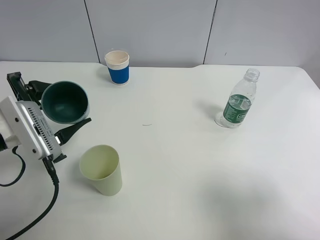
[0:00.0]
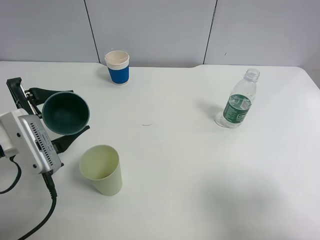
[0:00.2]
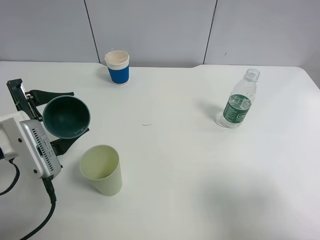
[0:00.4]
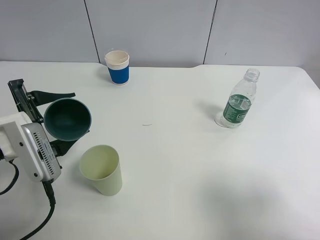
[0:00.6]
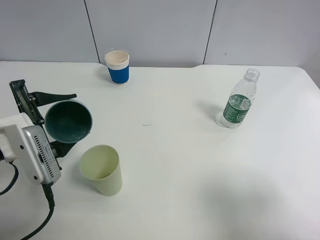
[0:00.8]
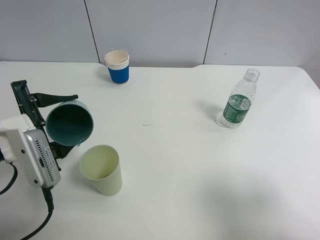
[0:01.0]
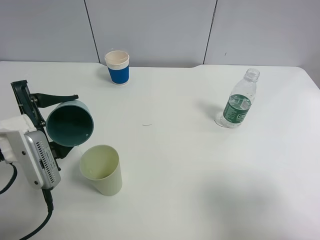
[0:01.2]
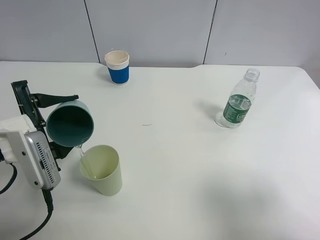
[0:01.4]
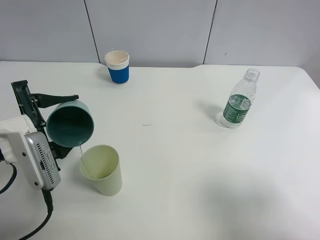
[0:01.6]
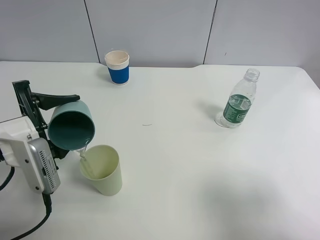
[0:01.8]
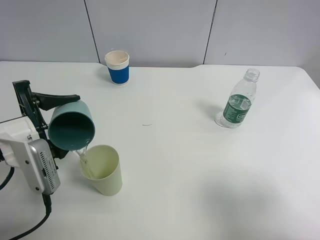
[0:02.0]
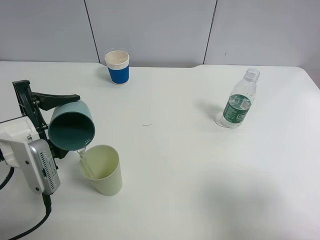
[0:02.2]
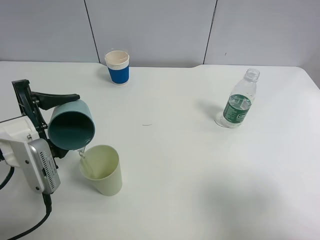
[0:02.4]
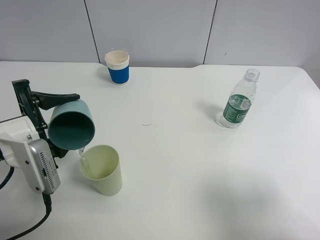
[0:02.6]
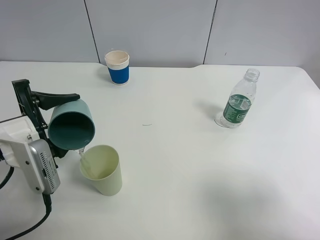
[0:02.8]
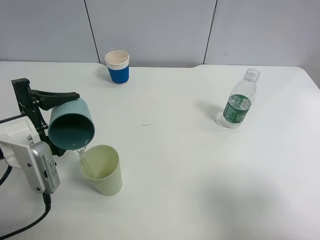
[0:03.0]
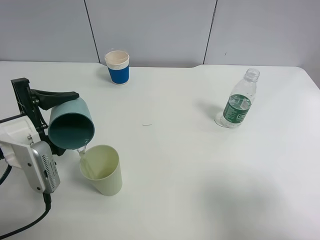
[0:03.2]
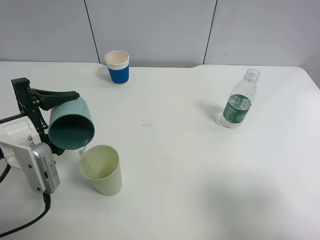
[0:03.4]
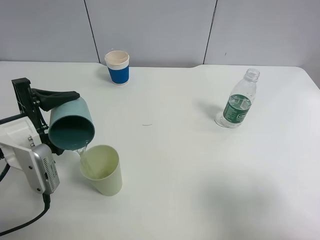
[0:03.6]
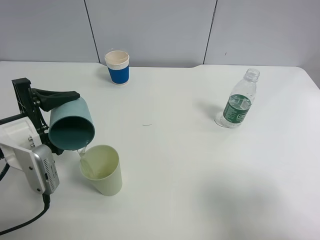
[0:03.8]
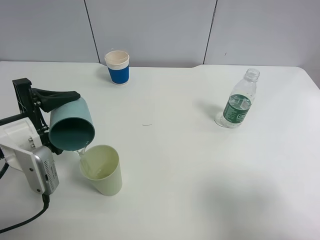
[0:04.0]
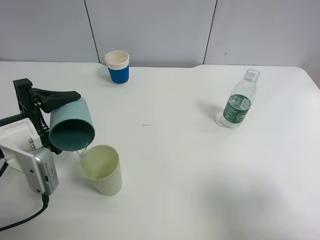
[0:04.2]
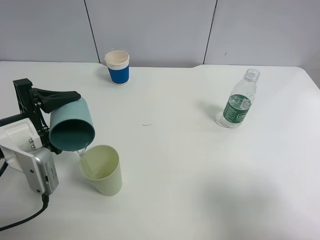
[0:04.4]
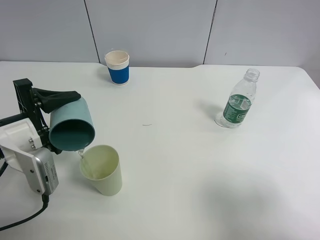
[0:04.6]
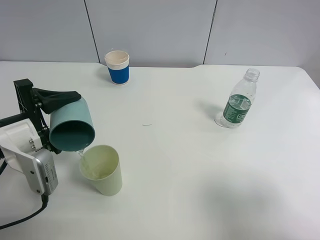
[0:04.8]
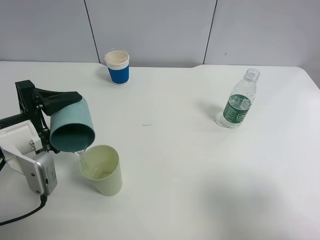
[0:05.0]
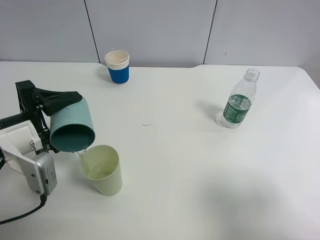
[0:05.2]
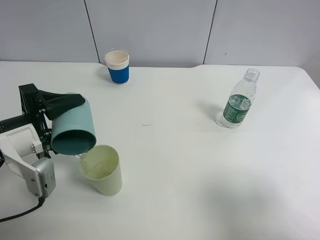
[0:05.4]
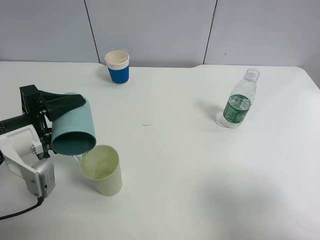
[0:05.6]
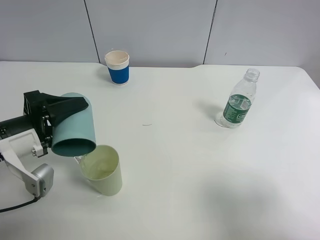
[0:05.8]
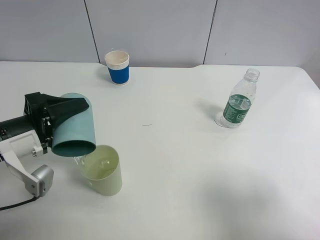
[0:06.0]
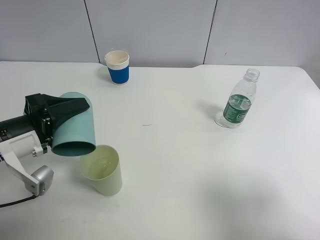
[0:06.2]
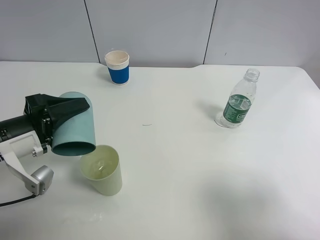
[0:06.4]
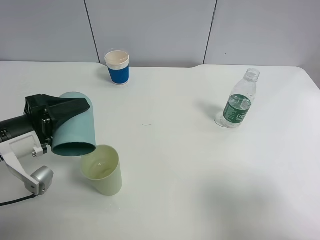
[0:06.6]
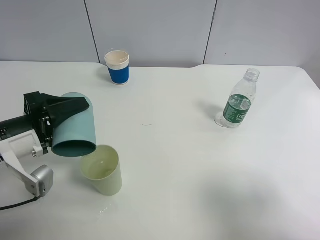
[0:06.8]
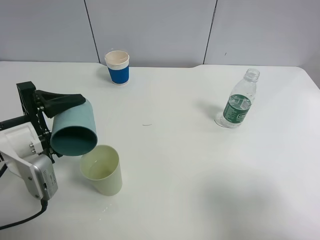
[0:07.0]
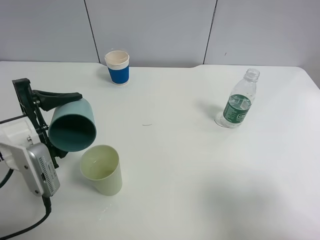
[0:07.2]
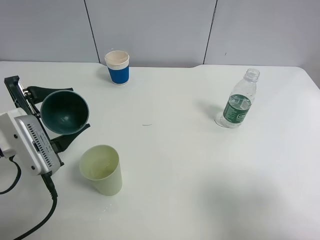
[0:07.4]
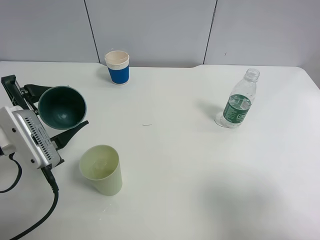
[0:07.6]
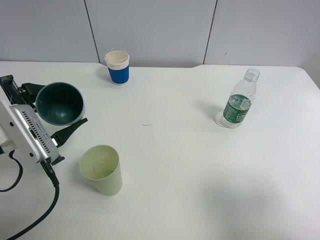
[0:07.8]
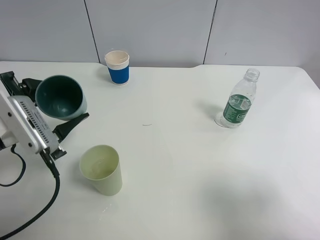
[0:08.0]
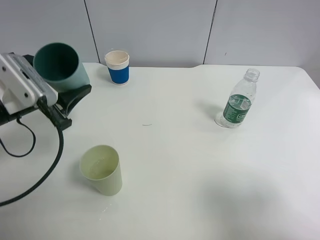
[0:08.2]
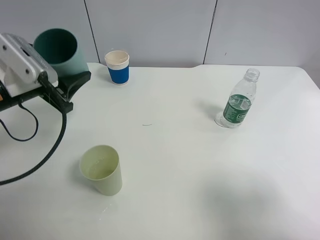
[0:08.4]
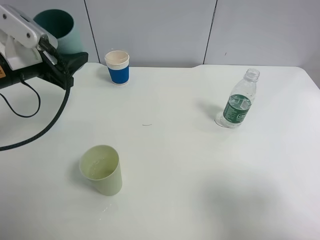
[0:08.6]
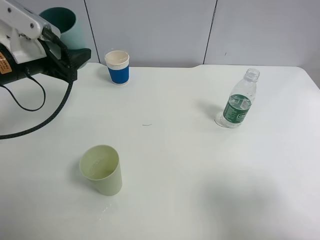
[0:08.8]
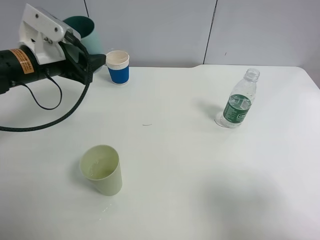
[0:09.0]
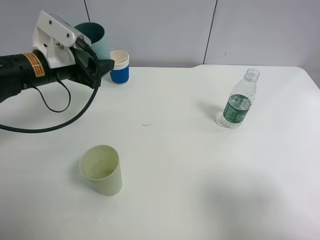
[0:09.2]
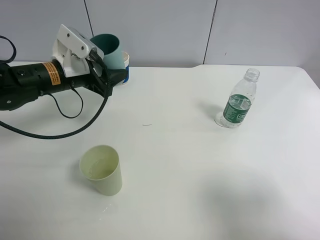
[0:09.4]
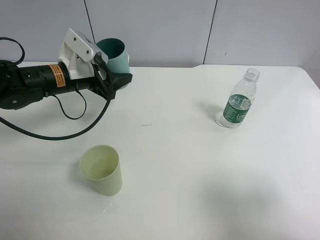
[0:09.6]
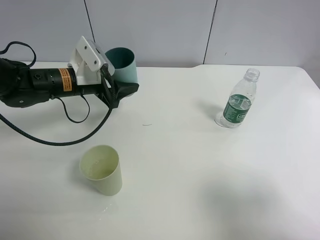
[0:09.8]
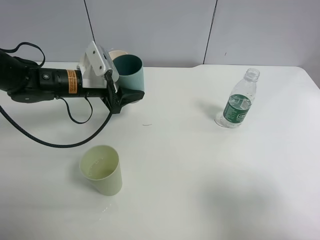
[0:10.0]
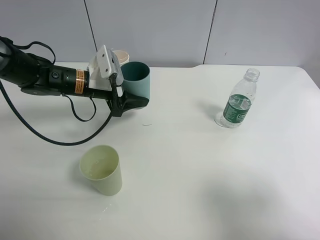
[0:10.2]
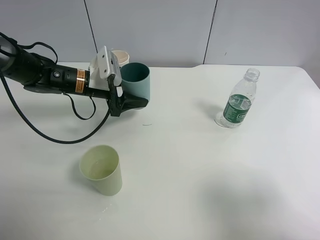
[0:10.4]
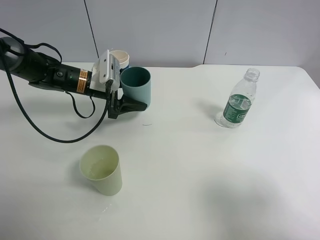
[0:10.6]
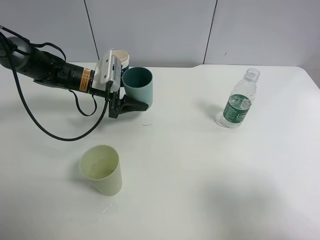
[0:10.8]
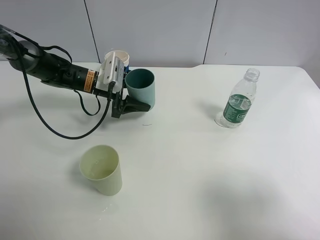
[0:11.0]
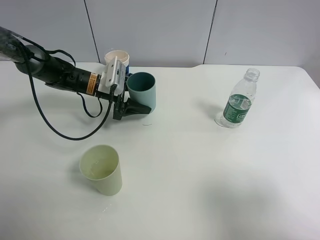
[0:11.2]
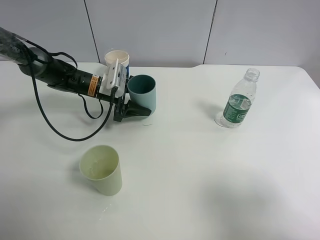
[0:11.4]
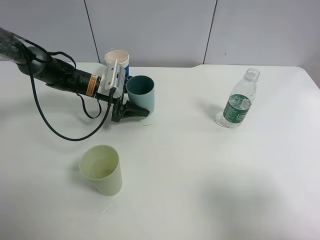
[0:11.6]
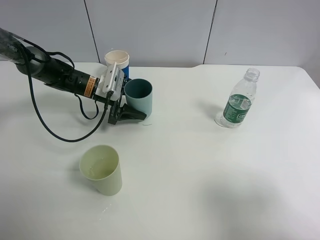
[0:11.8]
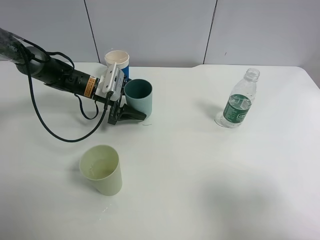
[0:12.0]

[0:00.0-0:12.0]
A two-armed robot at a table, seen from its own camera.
Task of the whole recording: use a clamp to hold the bottle of the drink, pour the beverage into a random cup, then clamp the cup containing the drink and pour the drink into another random cup.
Step, 0:00.0 to 0:07.2: Pour water into the green plastic cup with left gripper.
0:00.0 to 0:01.6: The grippers make only small movements.
0:01.6 to 0:03.0: The grippers move only a little.
0:03.0 to 0:04.4: The grippers move only a little.
0:07.6 to 0:09.0: The left gripper travels forward by roughly 15 cm.
0:09.0 to 0:10.4: The left gripper goes some 10 cm downward, to the right and forward.
0:10.4 to 0:12.0: The left gripper moves roughly 5 cm.

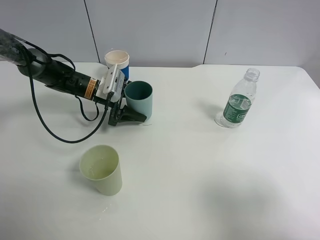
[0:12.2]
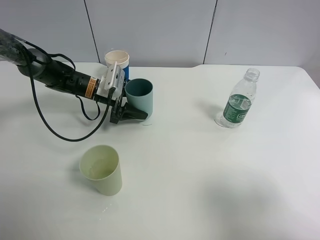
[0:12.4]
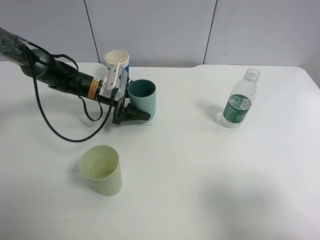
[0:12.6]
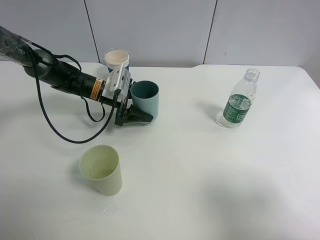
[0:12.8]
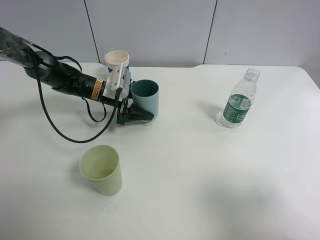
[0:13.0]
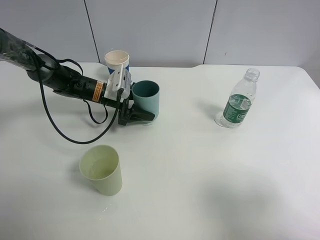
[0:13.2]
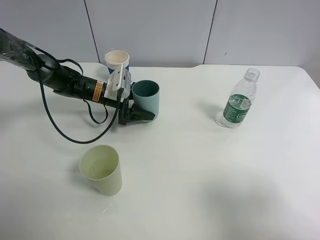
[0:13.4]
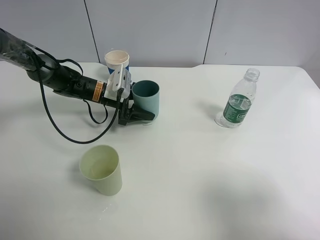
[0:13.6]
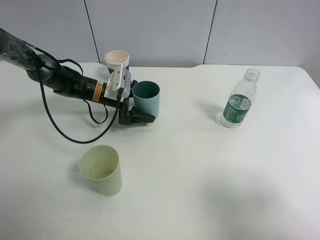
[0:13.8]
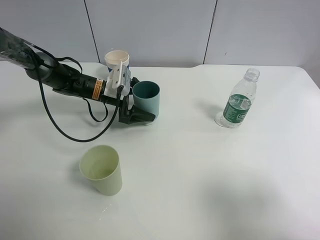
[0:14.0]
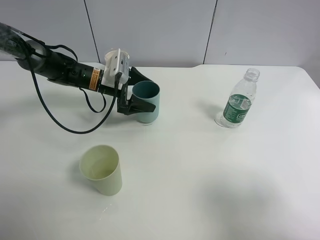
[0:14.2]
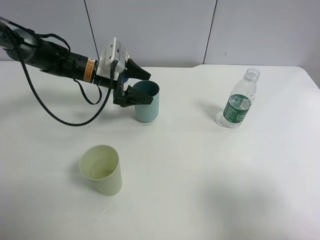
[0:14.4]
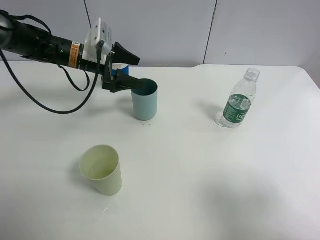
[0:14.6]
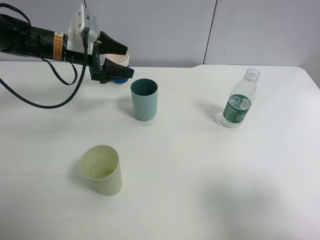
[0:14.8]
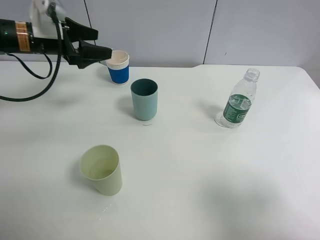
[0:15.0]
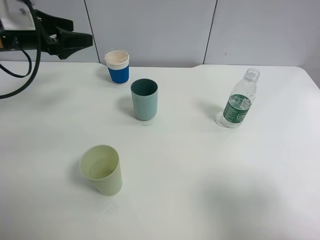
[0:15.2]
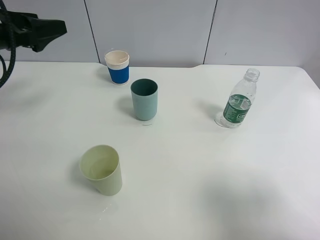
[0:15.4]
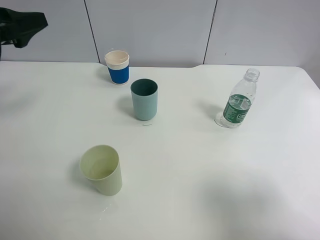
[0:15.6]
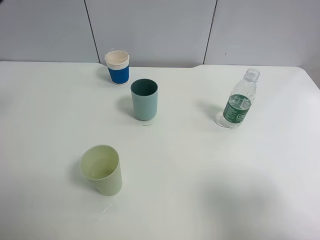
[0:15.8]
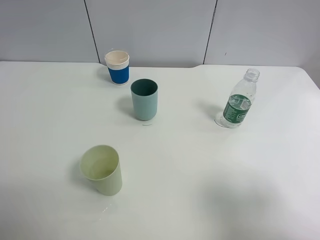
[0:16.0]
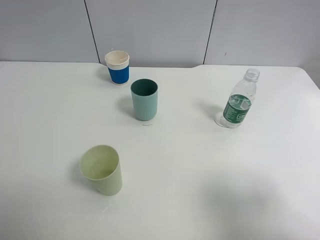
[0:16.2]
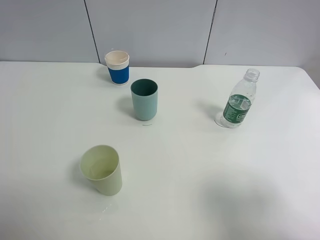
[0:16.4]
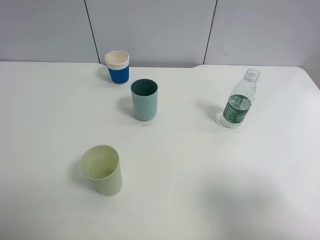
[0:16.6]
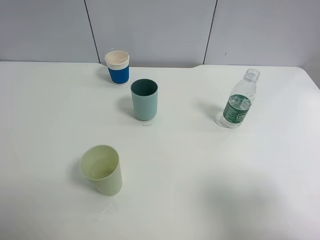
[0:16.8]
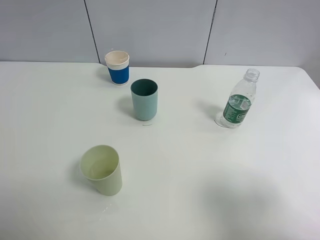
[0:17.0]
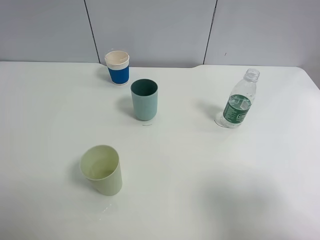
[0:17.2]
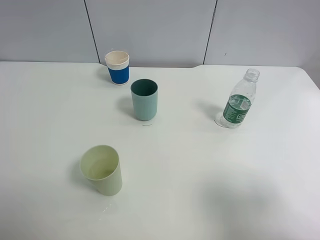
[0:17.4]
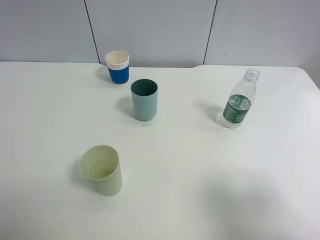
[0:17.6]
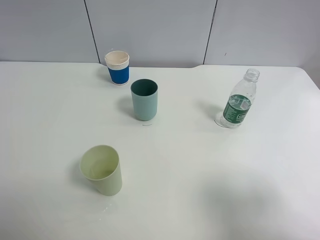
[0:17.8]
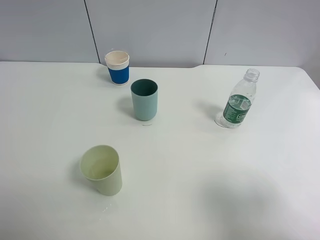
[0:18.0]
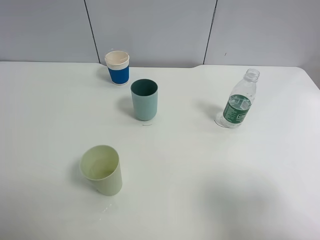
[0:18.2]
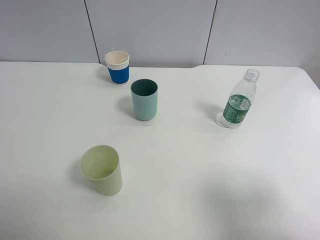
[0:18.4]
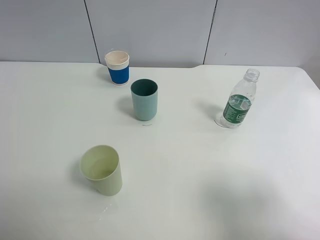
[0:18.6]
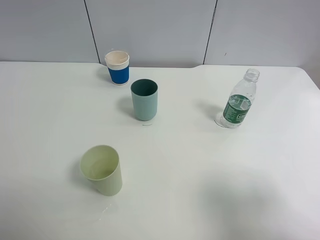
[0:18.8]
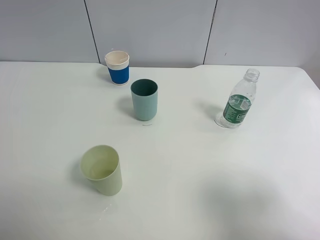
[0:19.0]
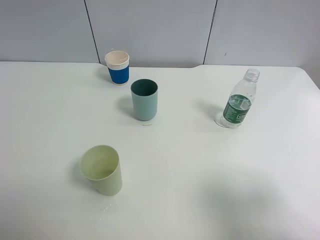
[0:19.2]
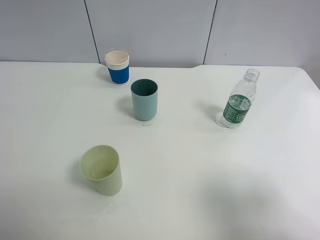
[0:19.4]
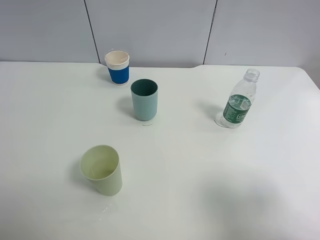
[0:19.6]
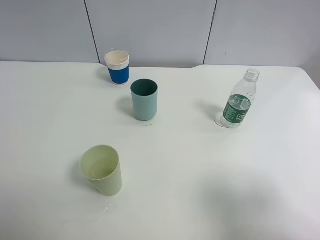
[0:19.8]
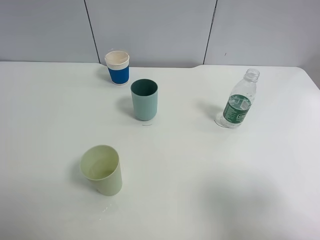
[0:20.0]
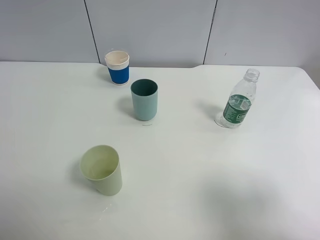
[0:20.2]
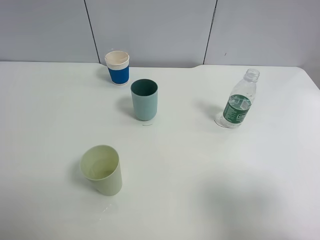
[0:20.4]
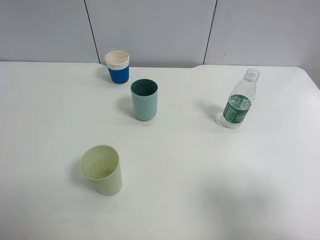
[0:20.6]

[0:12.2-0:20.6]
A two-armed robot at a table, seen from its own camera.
Task of the whole recording: use a clamp to hold the bottle of the drink, pour the beverage into a random cup, then clamp the cup containing the drink and pour the drink into another random cup.
Step, 0:12.2 to 0:14.4: Place the blue plastic cup on the table with left gripper.
0:12.2 to 0:13.6: The grippers stay close to where they were, moving slightly.
0:13.6 to 0:15.0: The left gripper shifts some 20 cm upward and to the left, and opens its fingers.
0:15.0 to 0:16.4: The left gripper moves backward and upward, roughly 30 cm.
0:19.2 to 0:20.6: The two grippers keep their place.

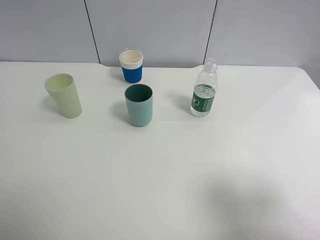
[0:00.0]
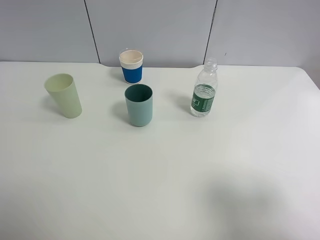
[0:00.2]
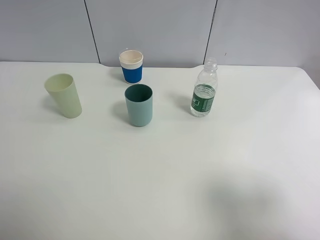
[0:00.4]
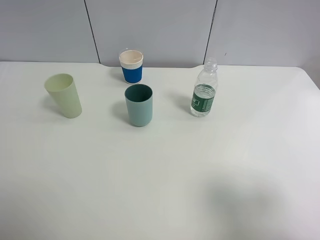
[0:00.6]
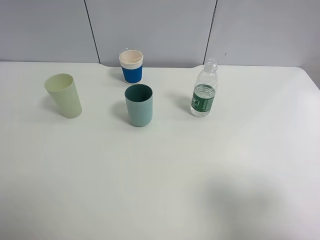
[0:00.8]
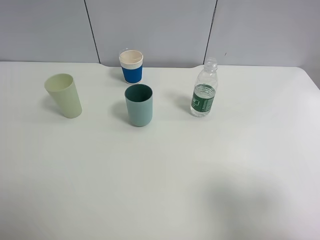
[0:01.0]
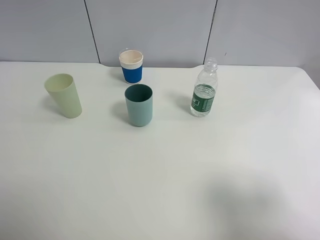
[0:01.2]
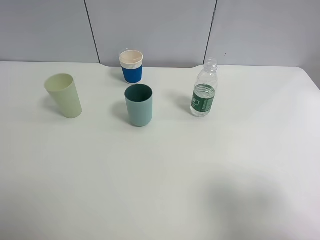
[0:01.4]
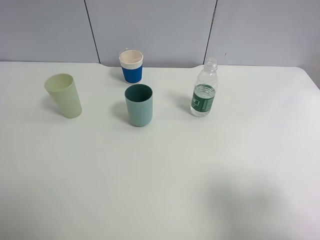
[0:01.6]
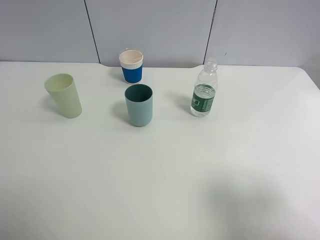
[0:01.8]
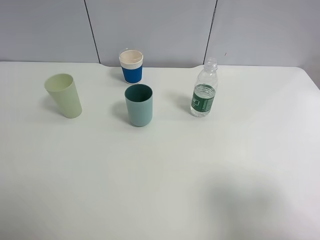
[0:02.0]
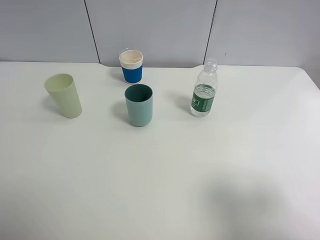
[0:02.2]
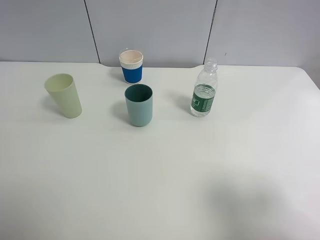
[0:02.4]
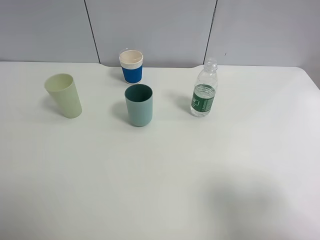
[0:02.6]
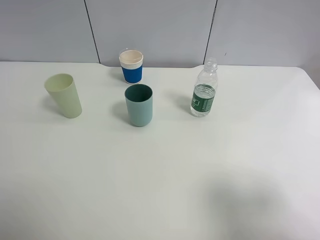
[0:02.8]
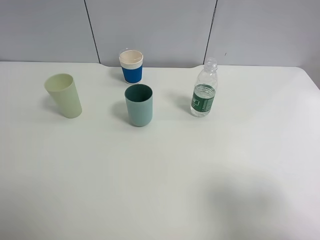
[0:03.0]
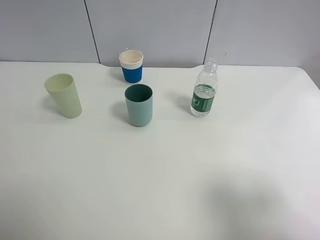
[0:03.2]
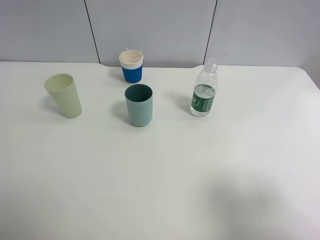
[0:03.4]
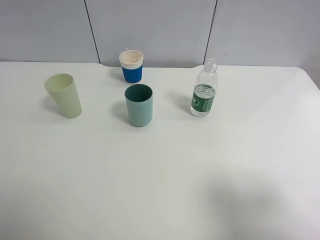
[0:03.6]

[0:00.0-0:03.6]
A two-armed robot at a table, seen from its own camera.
Task of the whole recording: use a clamp to hold the bottle of the drink, pour the beverage into a random cup, then clamp the cup containing the drink and pour the drink into another random cup.
0:00.0 to 0:03.6: Both grippers stay put.
